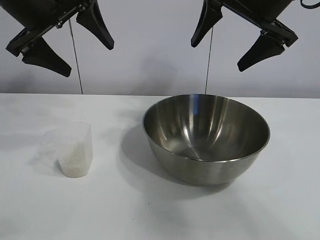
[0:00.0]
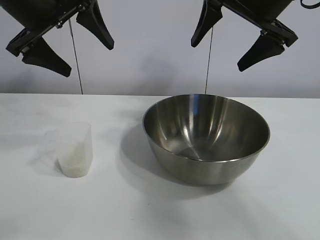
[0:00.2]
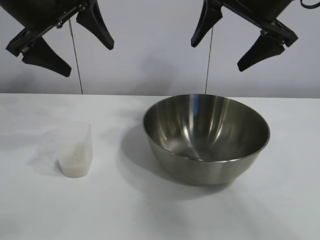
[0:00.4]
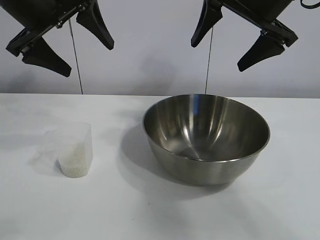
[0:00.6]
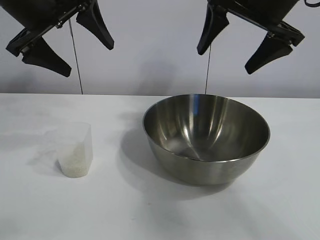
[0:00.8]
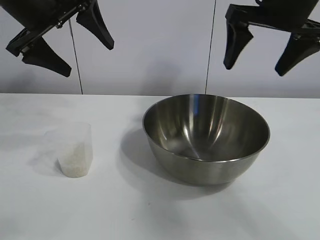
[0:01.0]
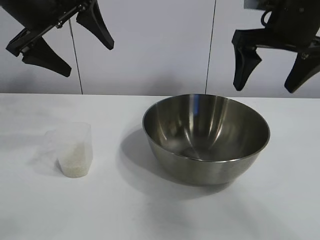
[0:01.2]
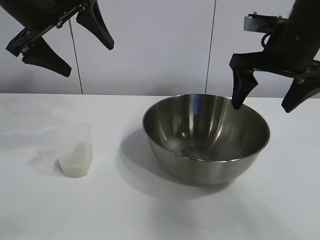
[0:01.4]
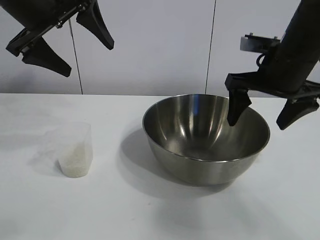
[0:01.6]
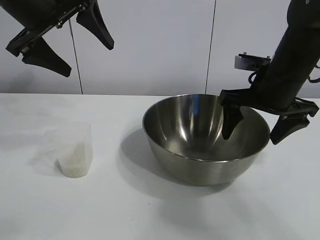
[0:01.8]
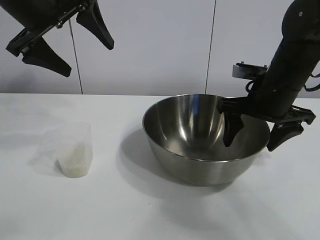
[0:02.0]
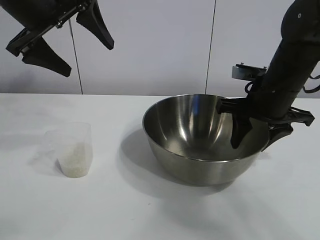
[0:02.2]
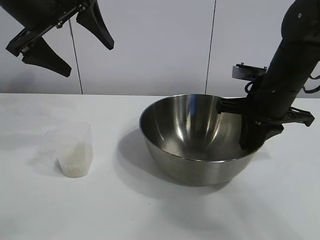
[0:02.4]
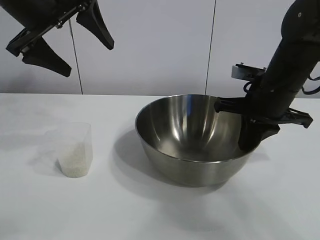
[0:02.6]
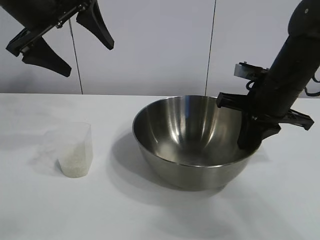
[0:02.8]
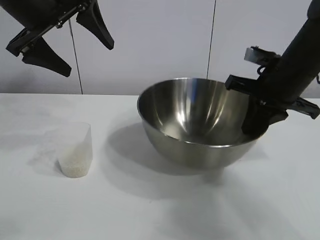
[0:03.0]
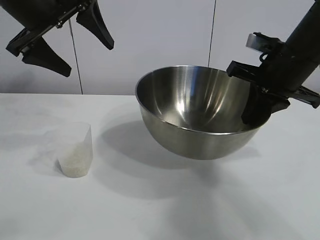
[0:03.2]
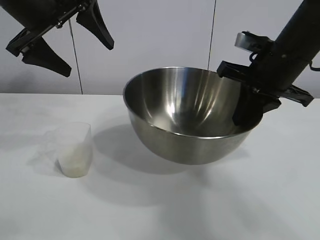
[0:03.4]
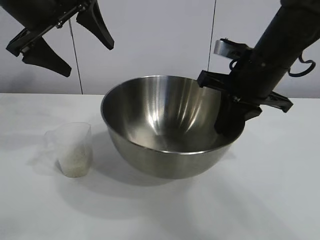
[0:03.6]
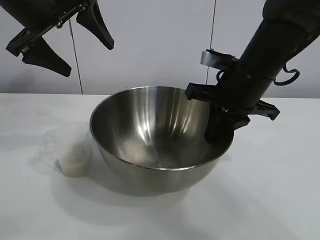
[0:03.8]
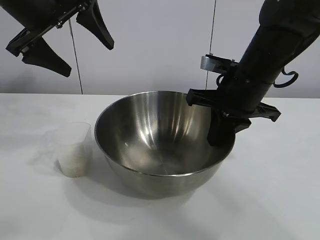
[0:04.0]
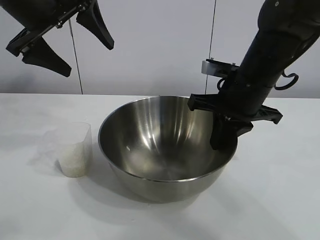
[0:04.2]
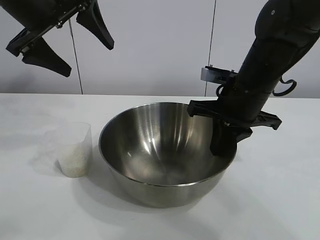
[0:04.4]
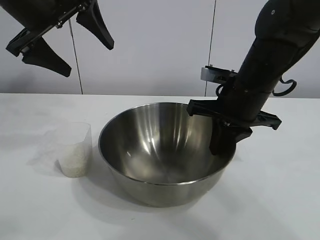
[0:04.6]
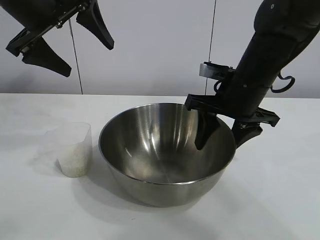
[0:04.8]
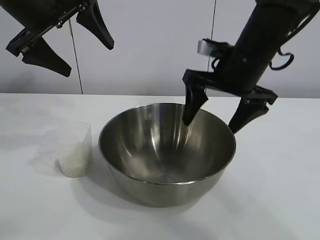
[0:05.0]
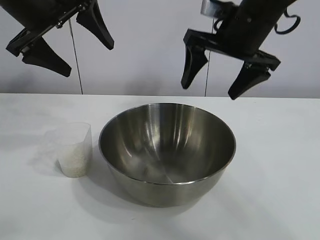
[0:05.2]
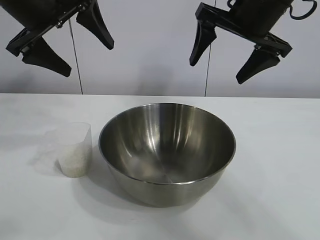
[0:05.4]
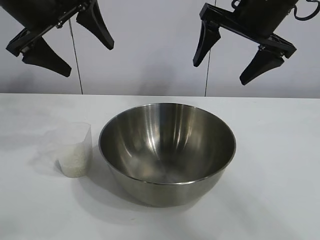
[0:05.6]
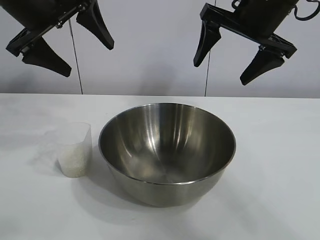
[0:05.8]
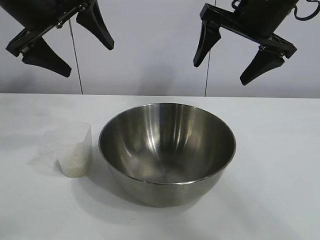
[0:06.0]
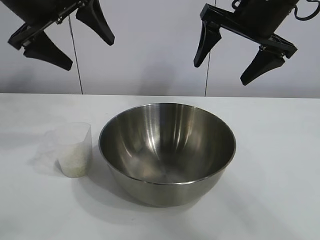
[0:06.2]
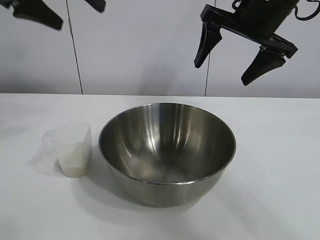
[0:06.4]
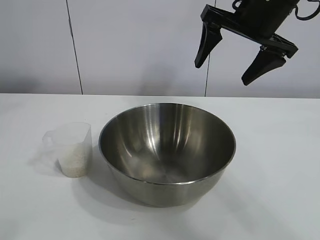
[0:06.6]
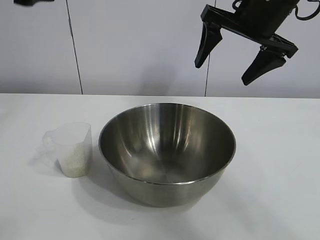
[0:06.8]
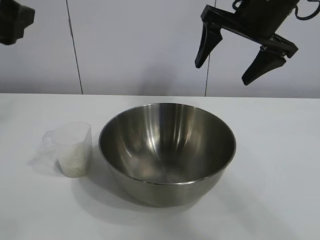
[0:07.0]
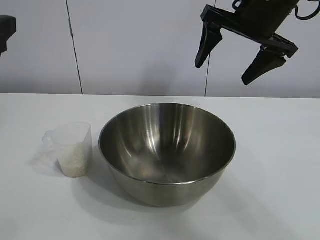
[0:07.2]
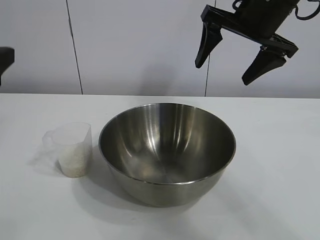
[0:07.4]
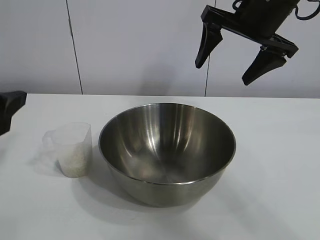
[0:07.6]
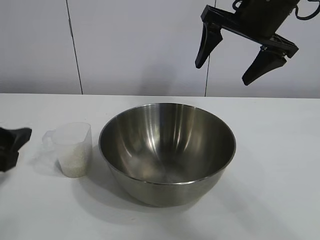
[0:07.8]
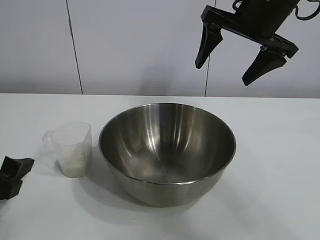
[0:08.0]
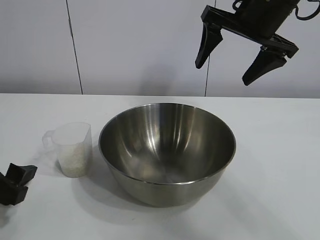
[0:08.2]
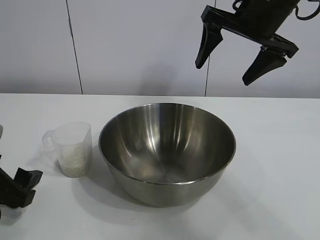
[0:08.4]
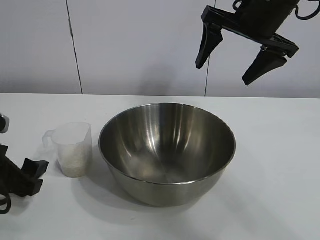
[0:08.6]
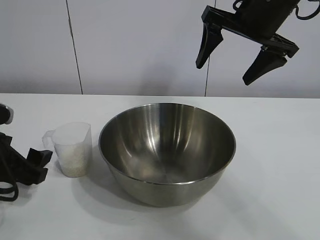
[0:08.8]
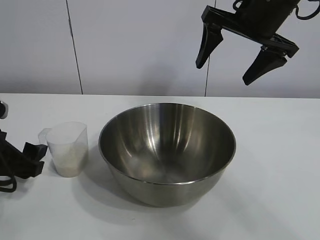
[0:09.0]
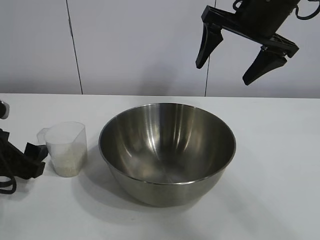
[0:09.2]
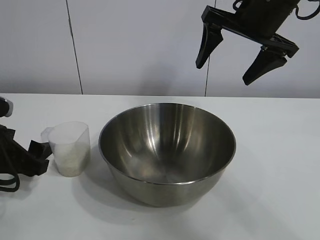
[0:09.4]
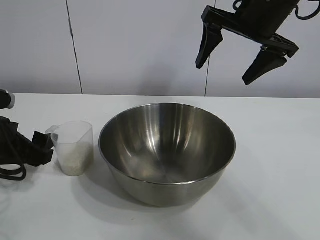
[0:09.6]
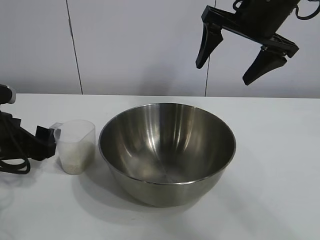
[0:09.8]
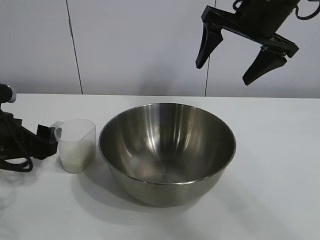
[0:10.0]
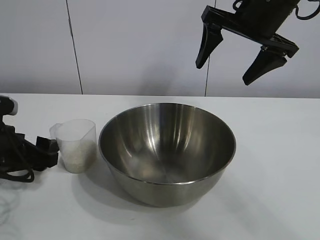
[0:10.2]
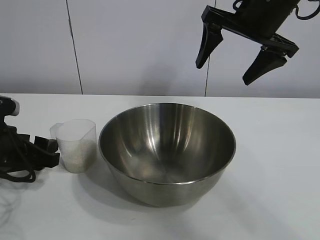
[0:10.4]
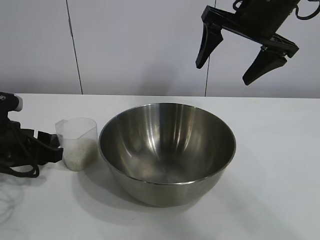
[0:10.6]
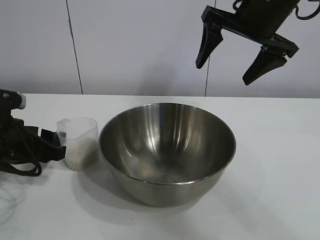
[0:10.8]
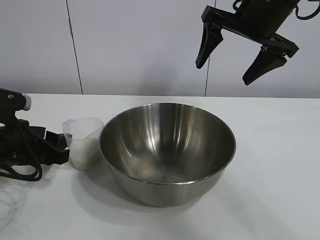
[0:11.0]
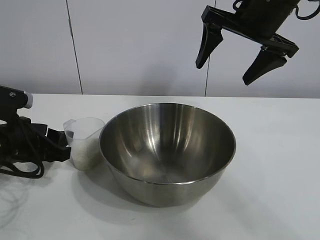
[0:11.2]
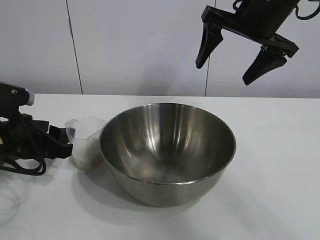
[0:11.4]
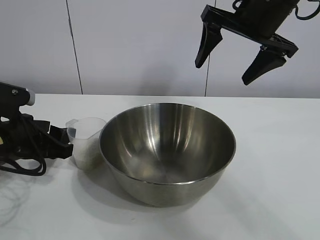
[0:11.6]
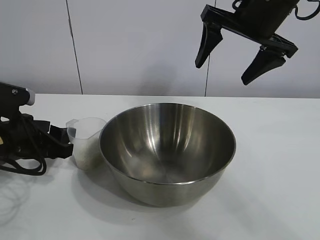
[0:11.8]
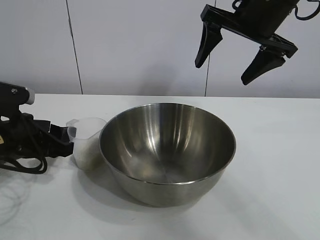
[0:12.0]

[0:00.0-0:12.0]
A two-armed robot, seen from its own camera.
Task of the whole recording: the right gripper grasp the rice container and place it in the center of the table, the left gripper grasp the rice scoop and pour the rice into the rice container.
Step, 0:00.8 to 0:04.6: Move the bowl in the center of view with right gripper.

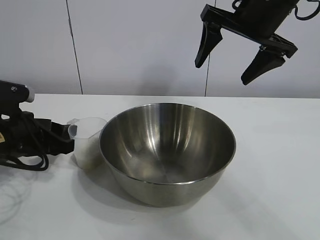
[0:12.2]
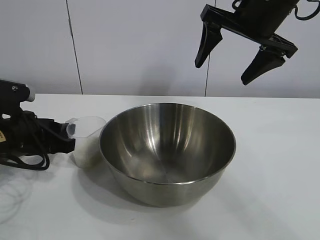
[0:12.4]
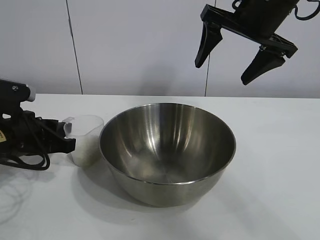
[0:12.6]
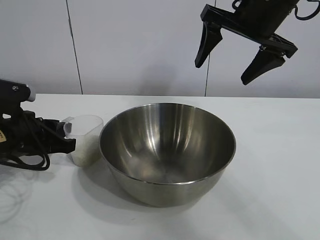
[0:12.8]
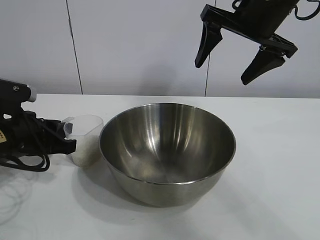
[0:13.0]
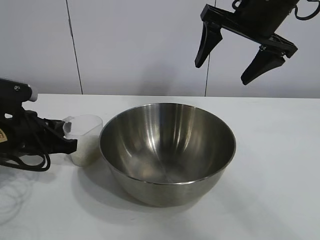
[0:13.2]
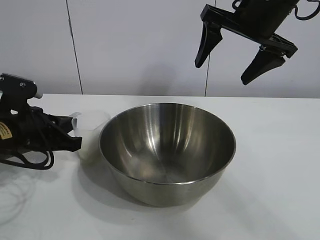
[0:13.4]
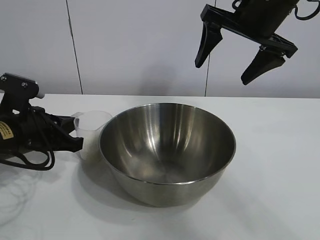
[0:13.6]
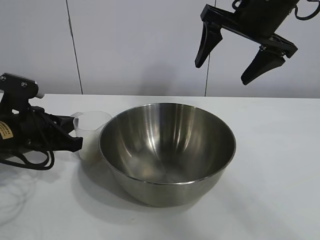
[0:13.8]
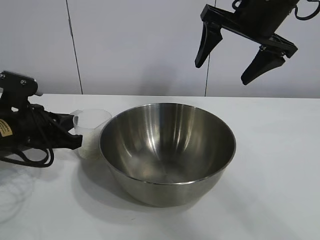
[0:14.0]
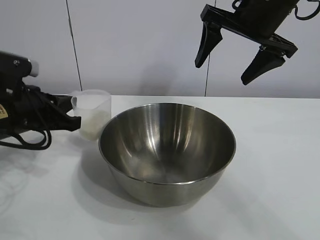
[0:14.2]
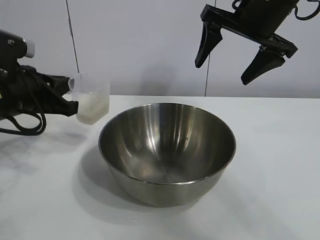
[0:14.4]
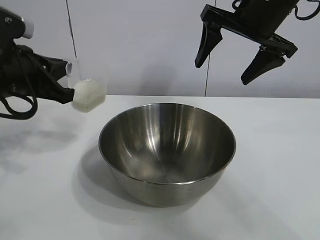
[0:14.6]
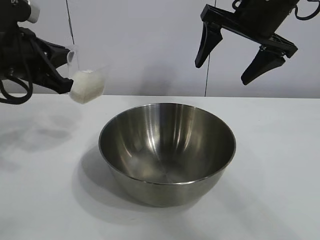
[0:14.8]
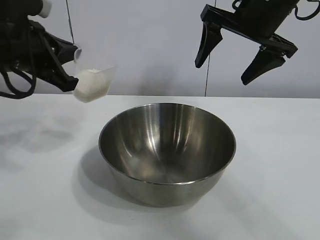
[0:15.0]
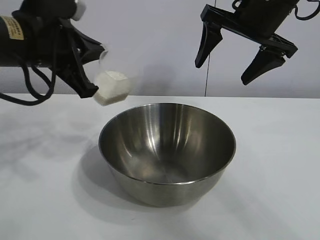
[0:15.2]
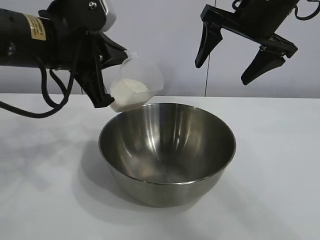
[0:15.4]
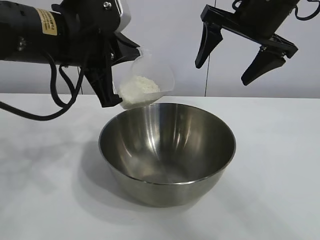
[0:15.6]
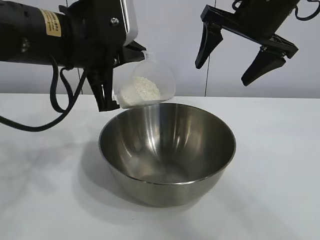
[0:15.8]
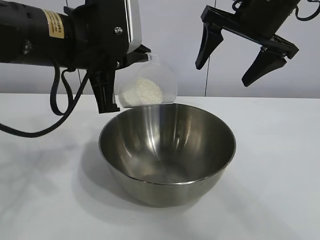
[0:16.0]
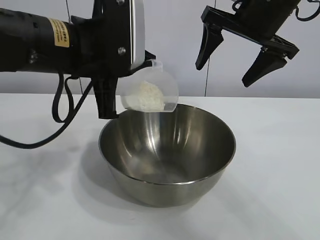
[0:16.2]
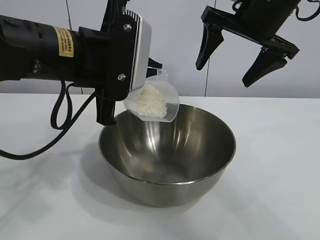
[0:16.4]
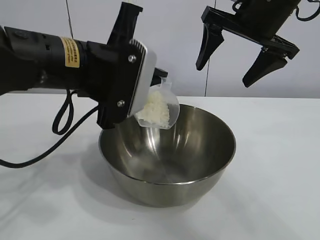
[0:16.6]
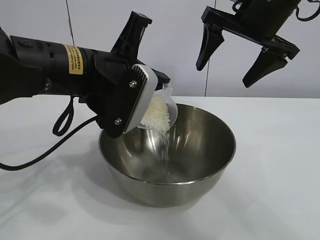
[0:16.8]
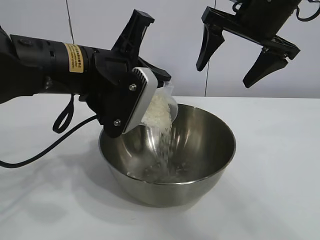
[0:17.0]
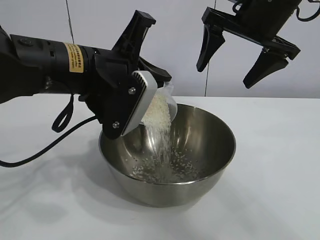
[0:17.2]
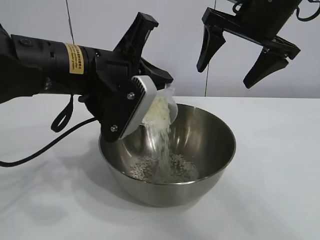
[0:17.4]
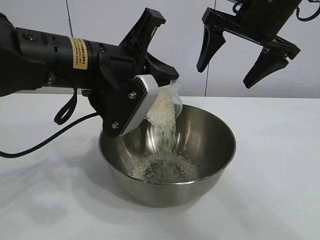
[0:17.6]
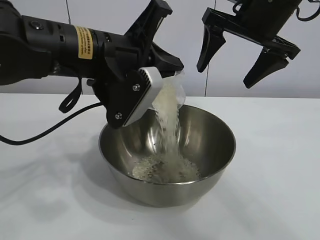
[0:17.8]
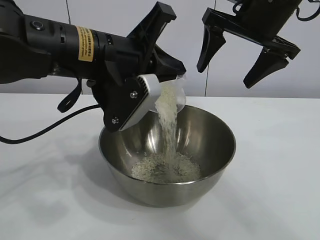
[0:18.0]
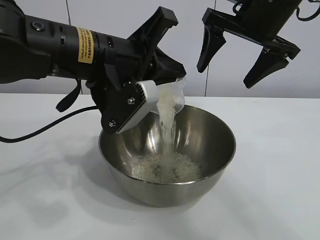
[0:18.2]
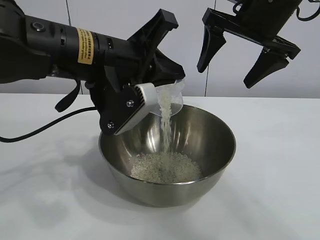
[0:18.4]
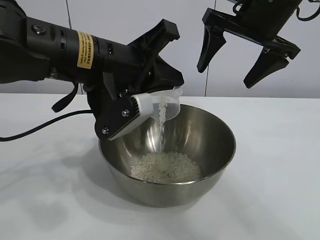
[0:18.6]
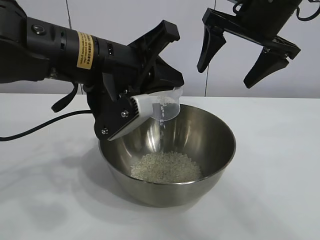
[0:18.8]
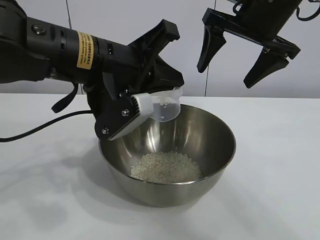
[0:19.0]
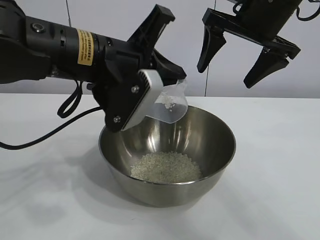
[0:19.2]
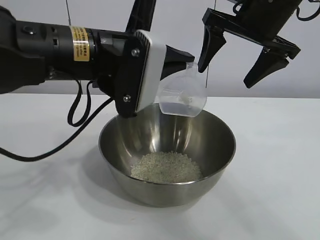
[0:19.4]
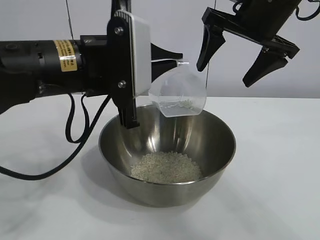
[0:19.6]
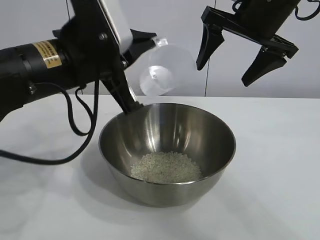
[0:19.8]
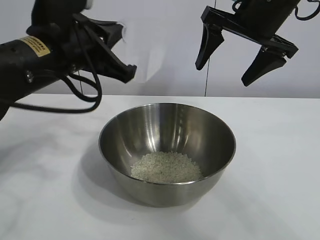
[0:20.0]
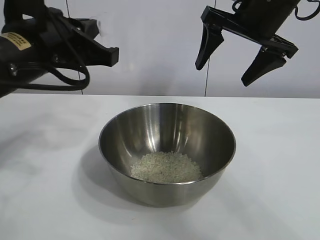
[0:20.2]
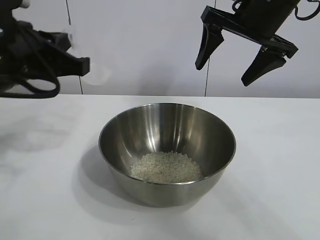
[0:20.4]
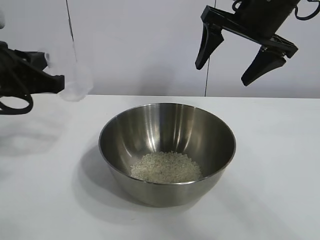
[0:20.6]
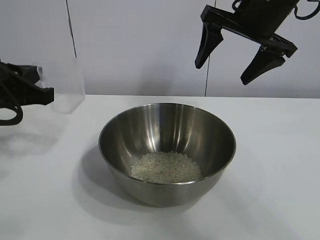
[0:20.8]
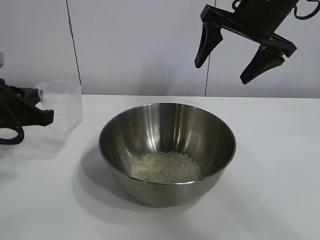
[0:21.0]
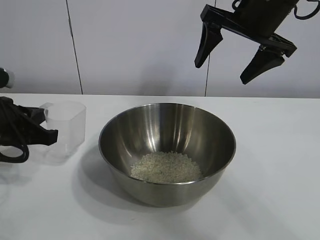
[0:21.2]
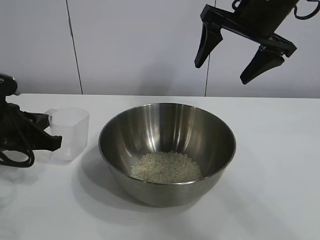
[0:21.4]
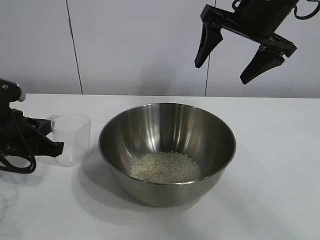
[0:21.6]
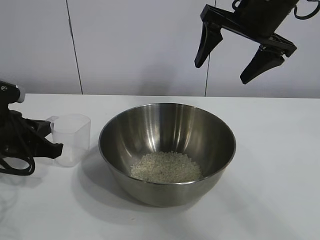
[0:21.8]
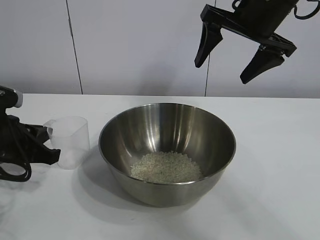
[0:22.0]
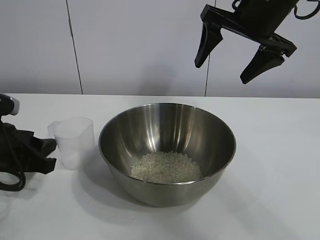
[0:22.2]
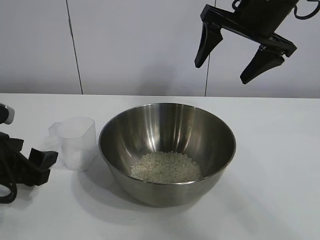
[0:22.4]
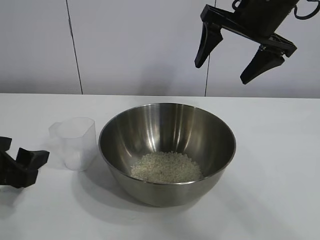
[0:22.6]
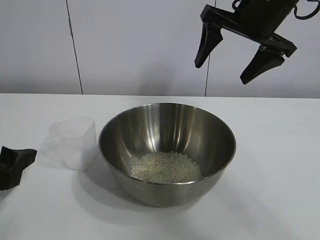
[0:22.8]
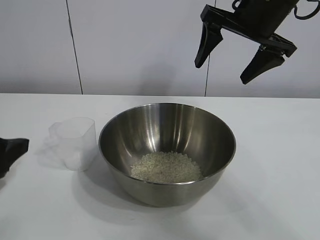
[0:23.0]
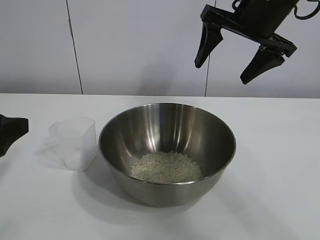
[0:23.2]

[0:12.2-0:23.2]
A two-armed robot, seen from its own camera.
Task of the whole recording: the right gripper grasp the rice container and place it in the center of the table, the left gripper grasp the rice scoop and pour the rice into the rice container.
Step, 0:14.0 to 0:18.8: Pour the rice from the cup into the bowl with the left gripper.
Step, 0:19.2 to 0:22.0: Place the cup on the table with the left gripper.
